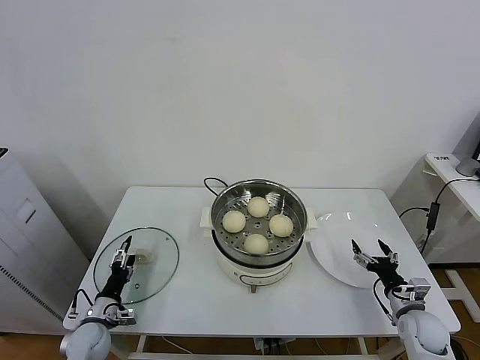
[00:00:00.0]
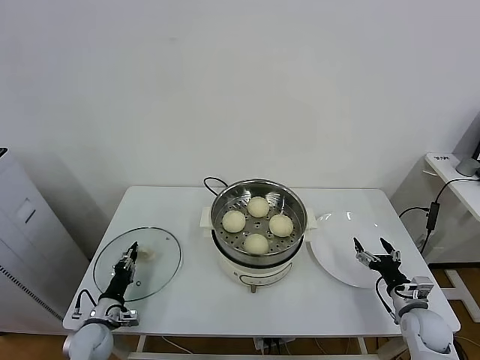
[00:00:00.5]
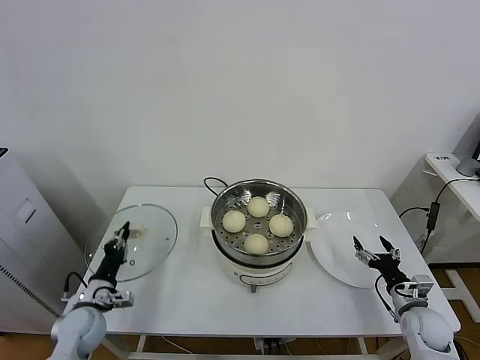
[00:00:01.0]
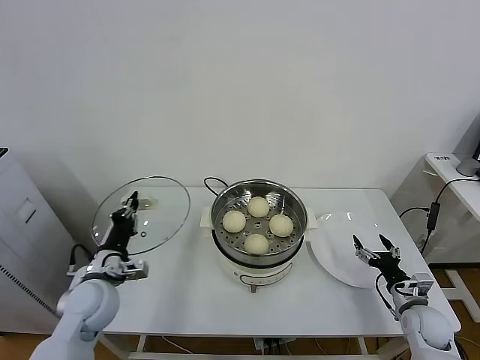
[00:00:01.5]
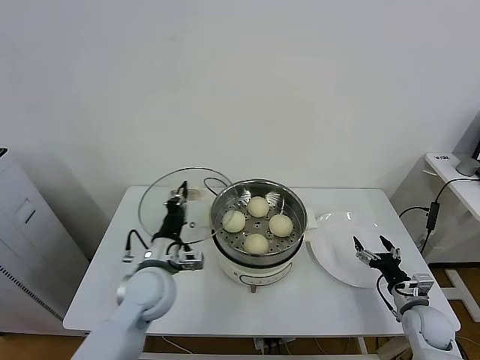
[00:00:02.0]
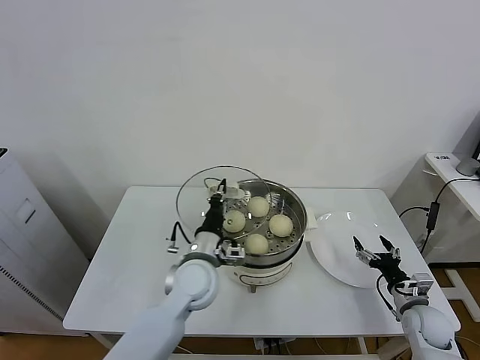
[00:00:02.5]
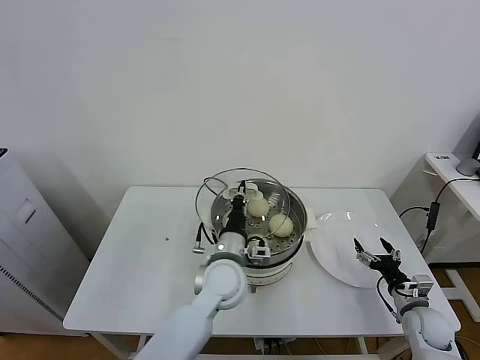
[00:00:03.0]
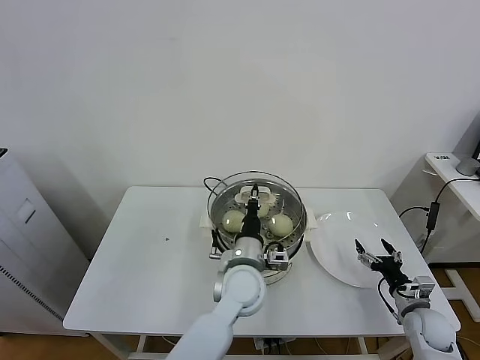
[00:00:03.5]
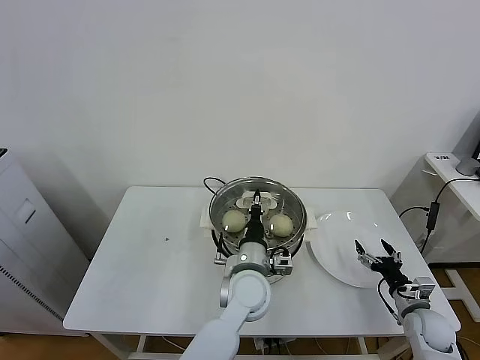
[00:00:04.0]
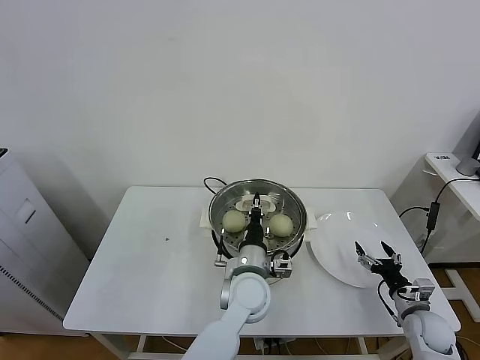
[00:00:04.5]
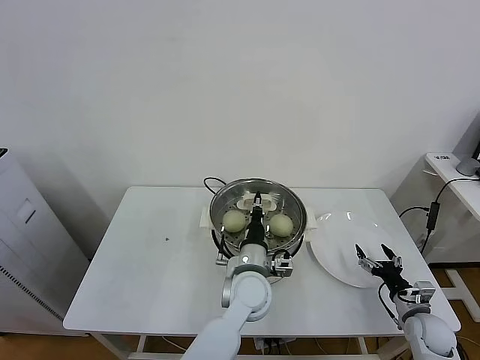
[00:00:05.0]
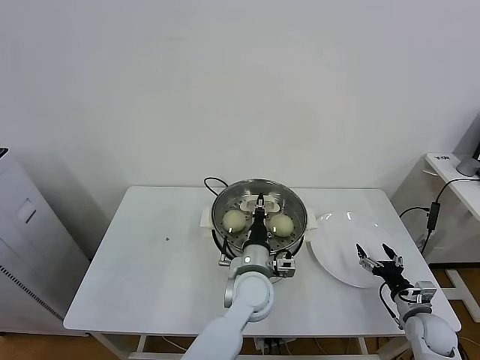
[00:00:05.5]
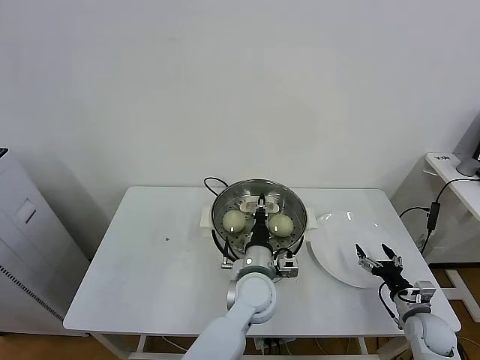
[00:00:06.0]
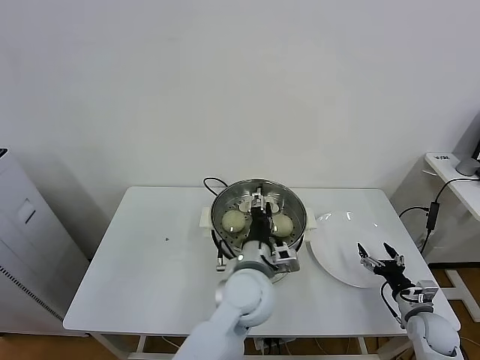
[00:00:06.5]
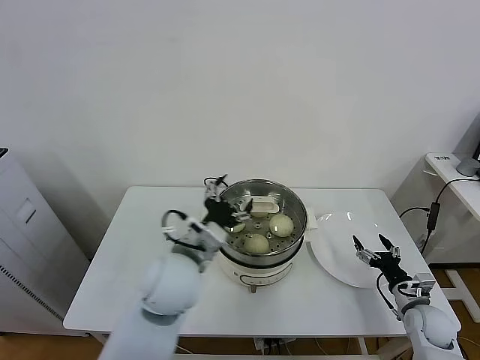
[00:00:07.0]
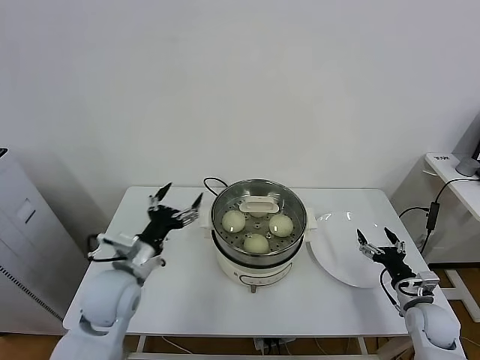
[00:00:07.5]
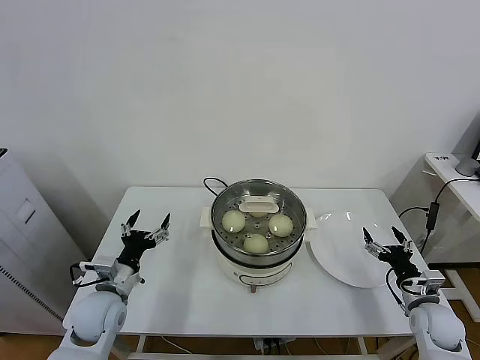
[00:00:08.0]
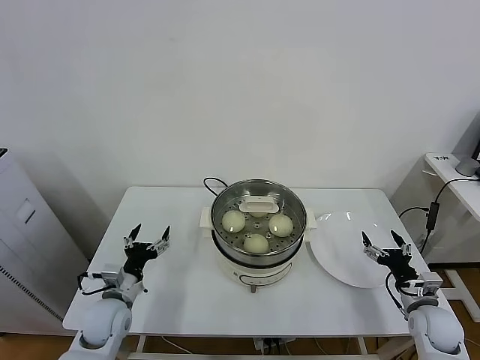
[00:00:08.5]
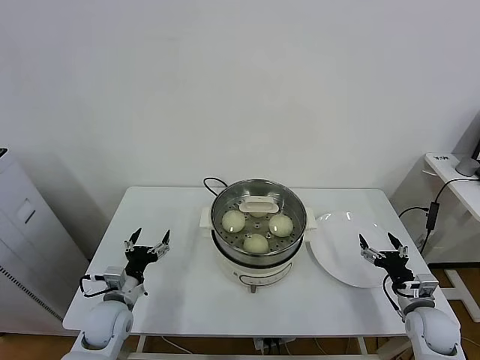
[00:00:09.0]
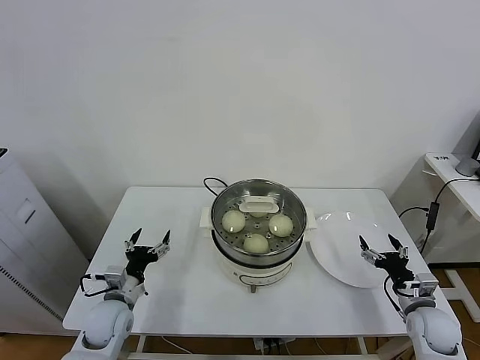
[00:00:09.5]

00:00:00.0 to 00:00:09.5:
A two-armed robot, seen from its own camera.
Task of the whole recording: take steamed baozi put them in steamer.
Step, 00:00:01.0 to 00:00:06.5: Place the pot lid on the steamer with left gripper.
00:00:00.0 to 00:00:02.0: The left gripper heads upward and to the right, covering about 25 cm, and closes.
00:00:02.0 to 00:00:04.0: The left gripper heads to the right, covering about 20 cm.
00:00:04.0 to 00:00:05.5: The grippers make only small movements.
00:00:05.5 to 00:00:07.5: The left gripper heads to the left, covering about 25 cm, and opens.
00:00:07.5 to 00:00:09.5: The left gripper goes approximately 15 cm downward and to the left.
